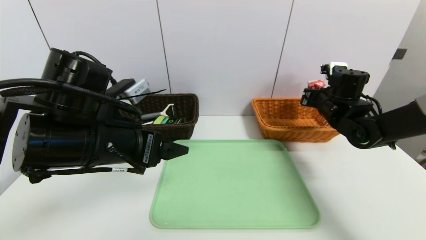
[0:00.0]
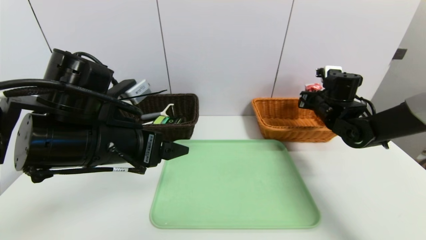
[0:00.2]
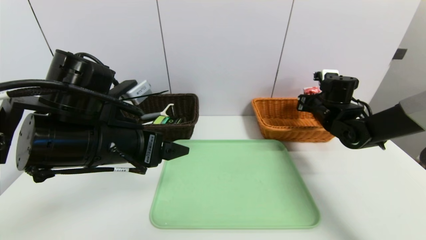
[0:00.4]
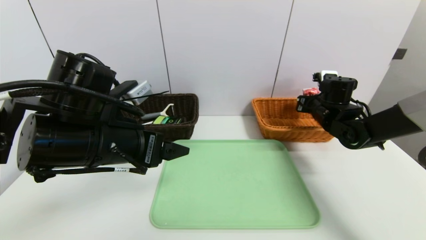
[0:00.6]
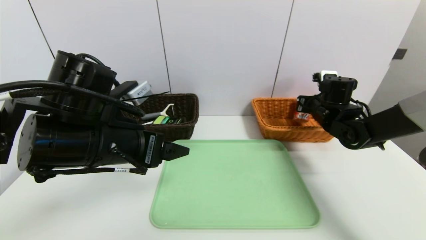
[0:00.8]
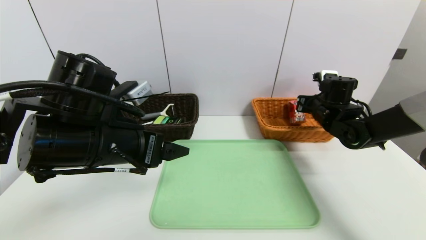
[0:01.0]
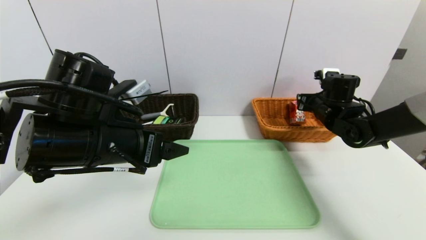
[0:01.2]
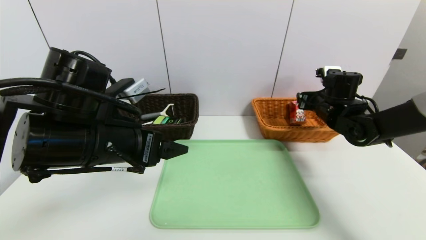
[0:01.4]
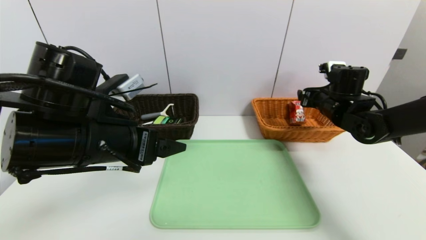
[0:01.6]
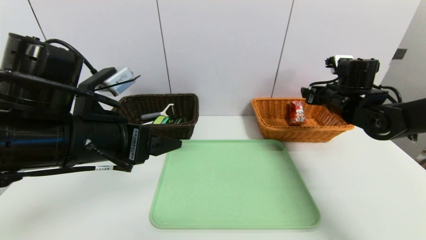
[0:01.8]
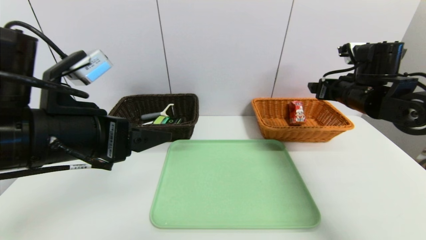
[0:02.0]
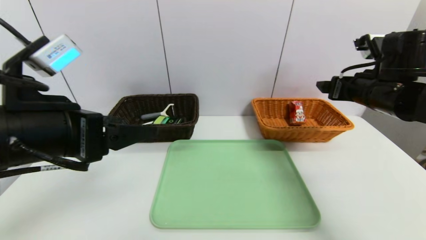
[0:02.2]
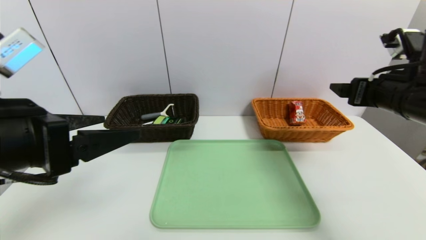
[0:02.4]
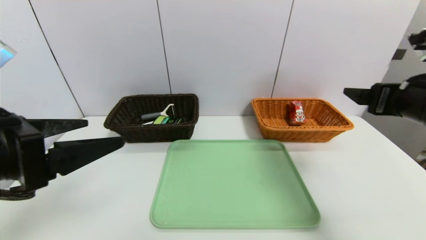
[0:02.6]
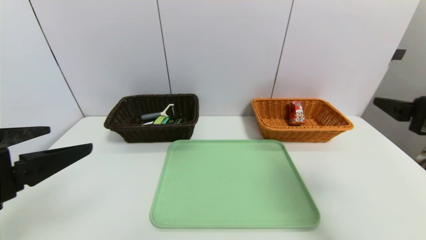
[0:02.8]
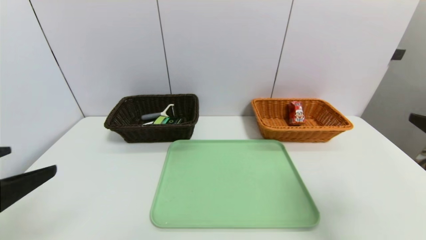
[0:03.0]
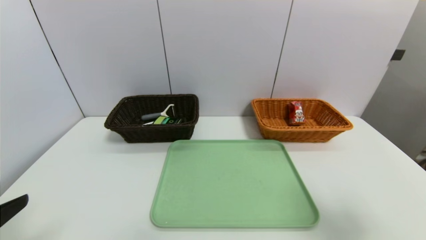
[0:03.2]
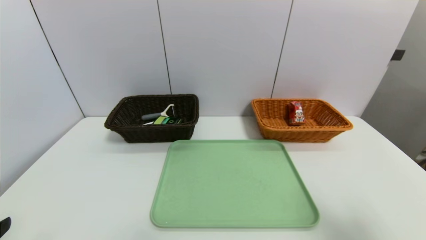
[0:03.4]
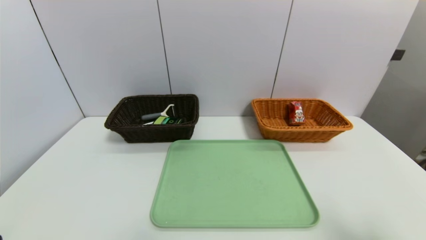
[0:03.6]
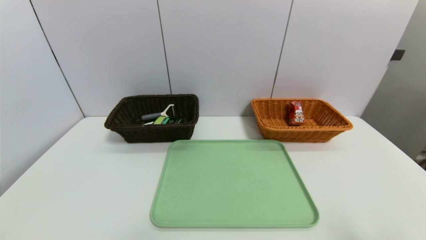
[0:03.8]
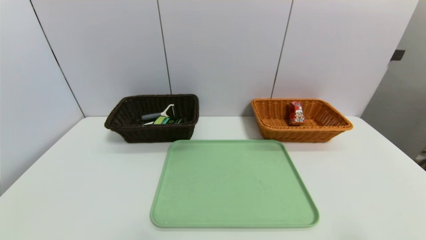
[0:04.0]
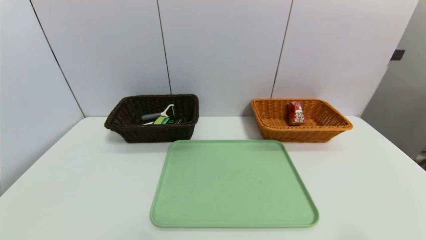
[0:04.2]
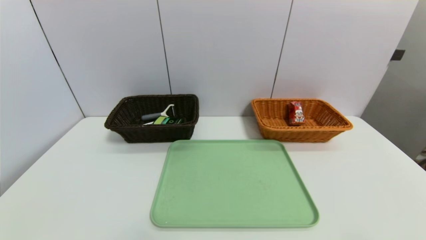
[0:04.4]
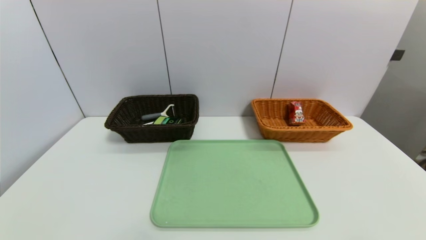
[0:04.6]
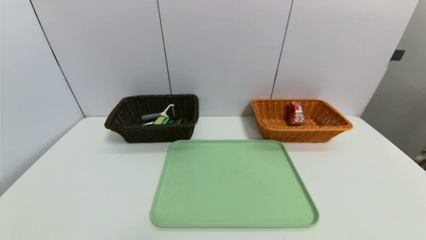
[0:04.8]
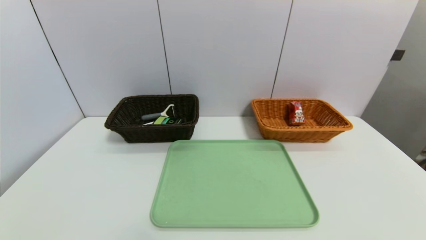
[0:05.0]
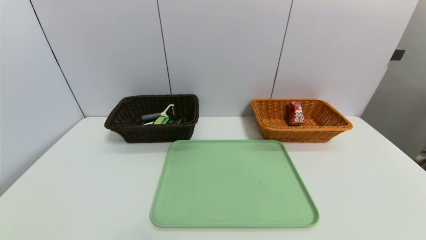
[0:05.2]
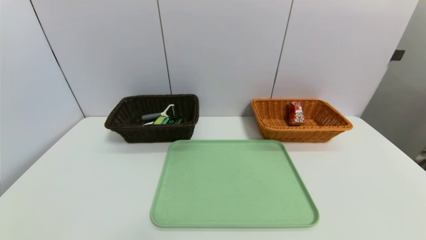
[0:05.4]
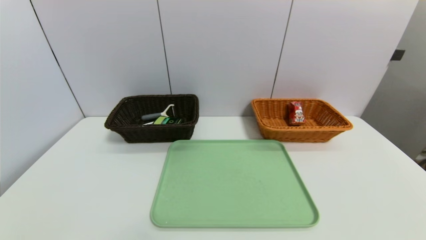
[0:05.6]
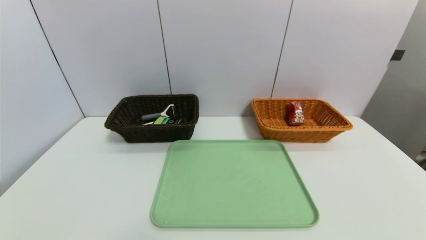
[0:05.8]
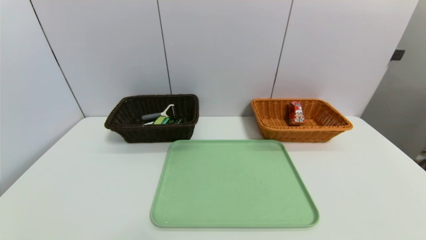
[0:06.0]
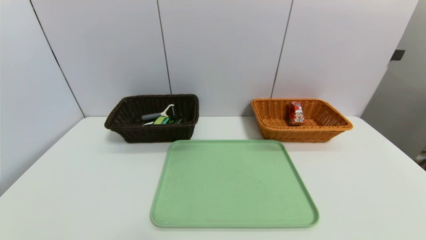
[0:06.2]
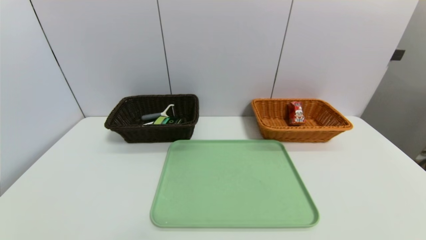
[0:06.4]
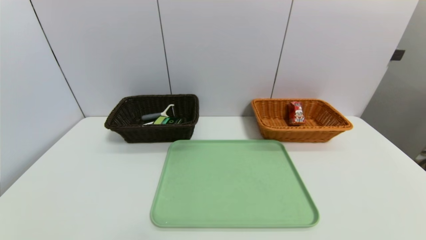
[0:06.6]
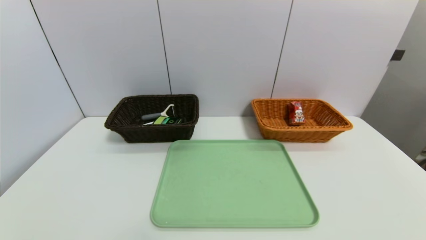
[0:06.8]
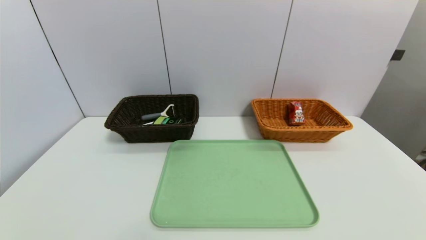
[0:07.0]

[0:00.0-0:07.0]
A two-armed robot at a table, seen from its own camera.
Task of the whole recording: place the food in the right basket with the right gripper, and place the non food items in the left basket with the left gripper.
0:00.0 to 0:01.4: The right gripper opens.
0:01.4 to 0:02.8: The right gripper moves backward, some 25 cm, while the left gripper is displaced backward and to the left by some 15 cm.
0:02.8 to 0:04.2: The right gripper goes about 15 cm backward. The left gripper heads backward and downward, covering approximately 15 cm.

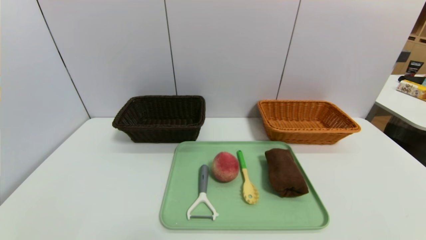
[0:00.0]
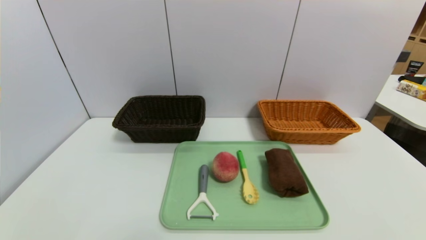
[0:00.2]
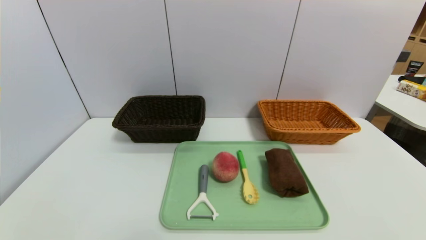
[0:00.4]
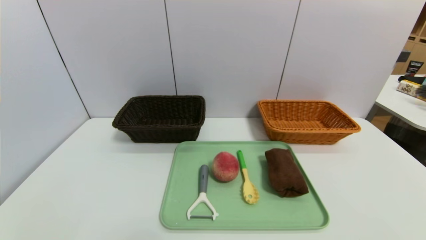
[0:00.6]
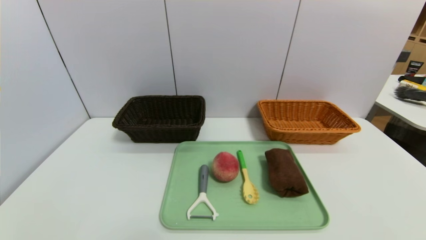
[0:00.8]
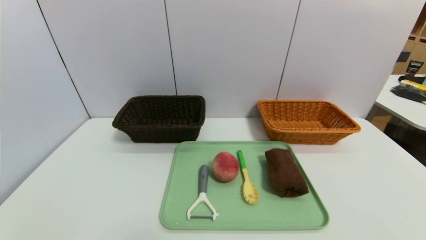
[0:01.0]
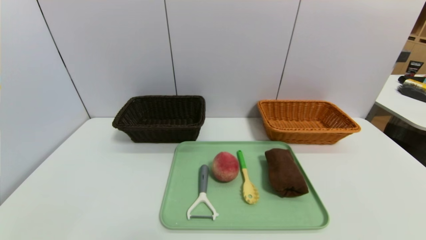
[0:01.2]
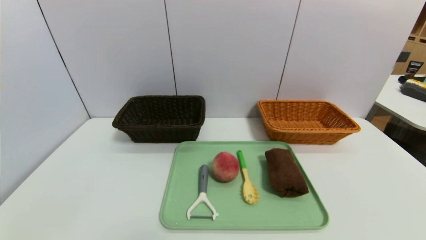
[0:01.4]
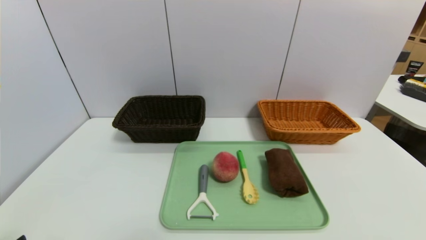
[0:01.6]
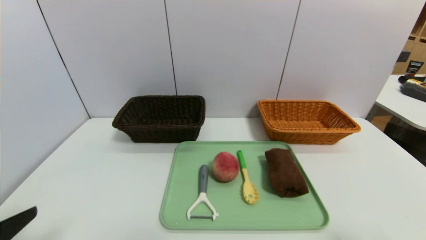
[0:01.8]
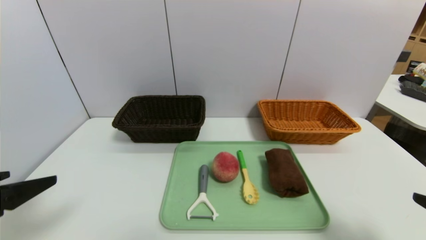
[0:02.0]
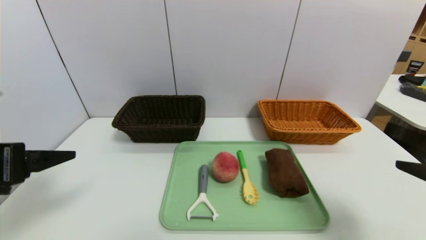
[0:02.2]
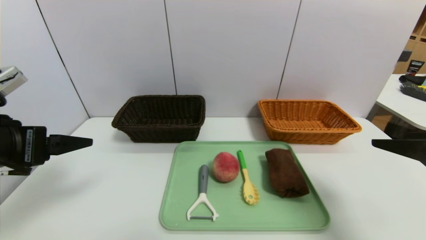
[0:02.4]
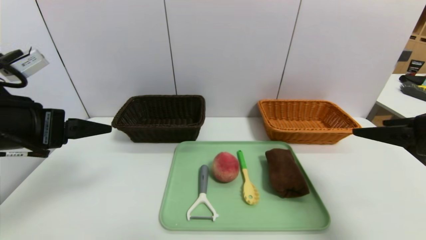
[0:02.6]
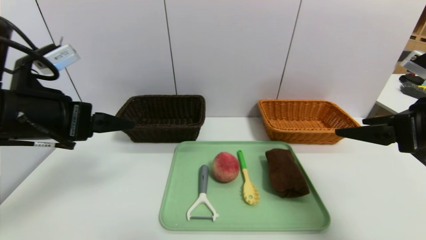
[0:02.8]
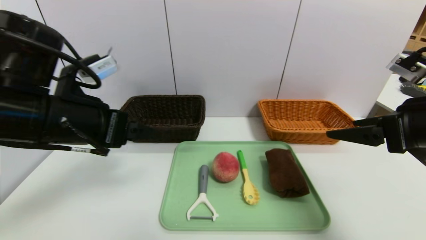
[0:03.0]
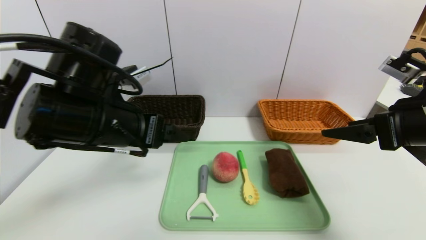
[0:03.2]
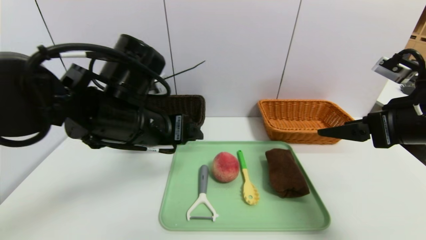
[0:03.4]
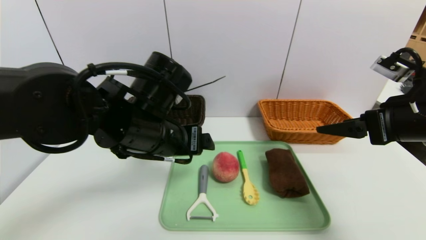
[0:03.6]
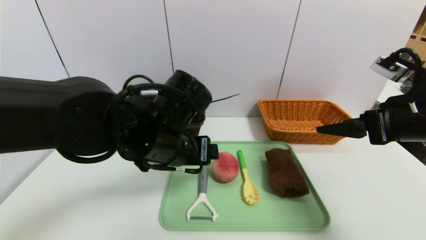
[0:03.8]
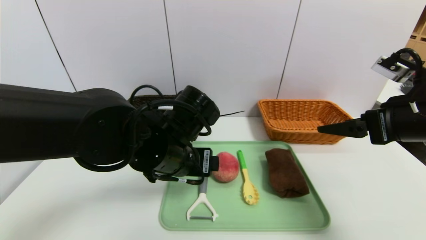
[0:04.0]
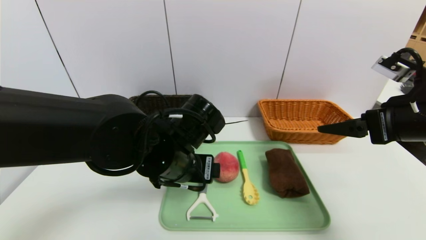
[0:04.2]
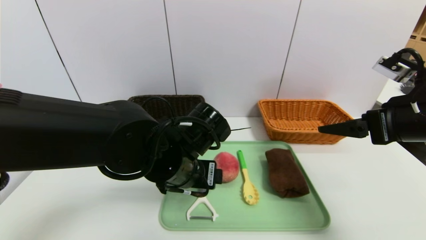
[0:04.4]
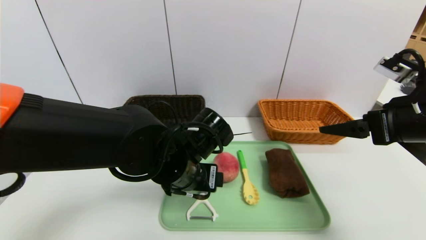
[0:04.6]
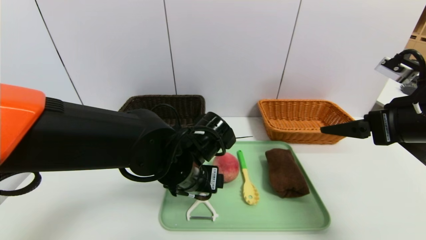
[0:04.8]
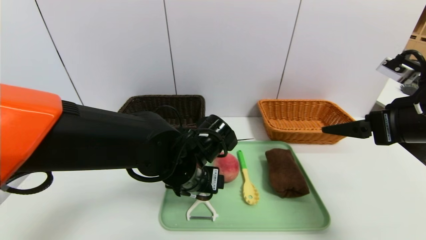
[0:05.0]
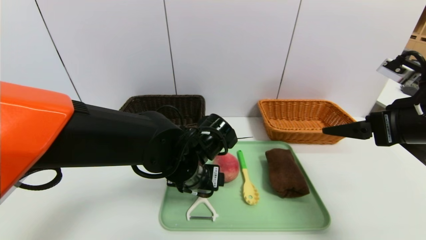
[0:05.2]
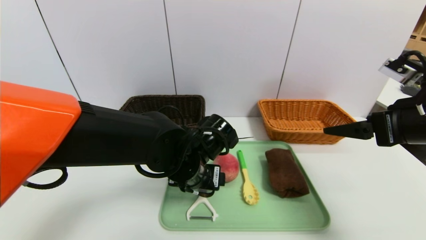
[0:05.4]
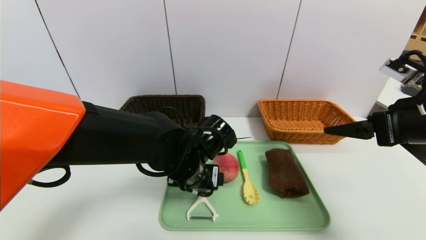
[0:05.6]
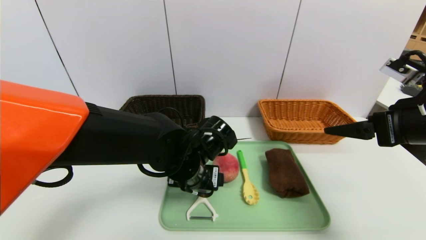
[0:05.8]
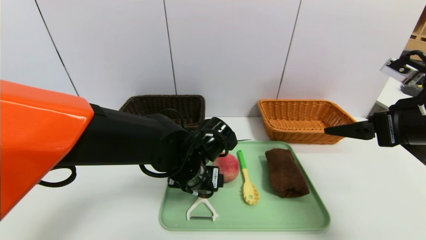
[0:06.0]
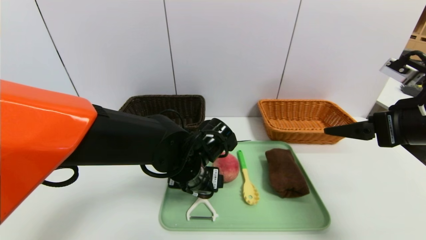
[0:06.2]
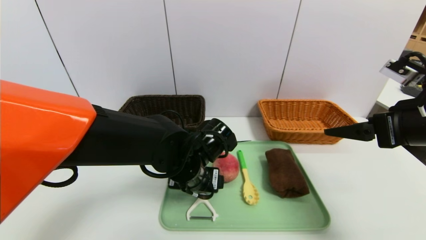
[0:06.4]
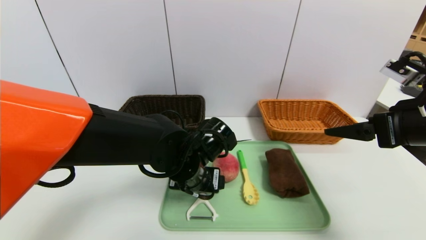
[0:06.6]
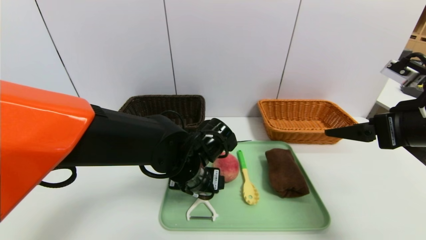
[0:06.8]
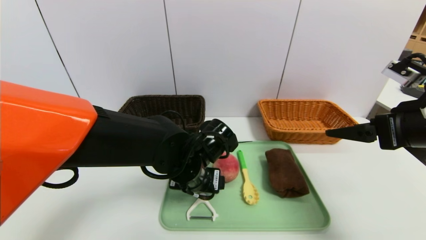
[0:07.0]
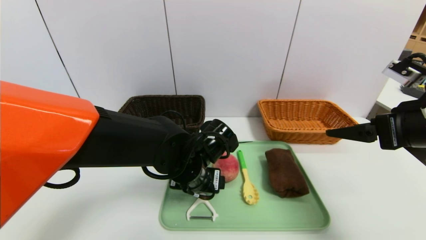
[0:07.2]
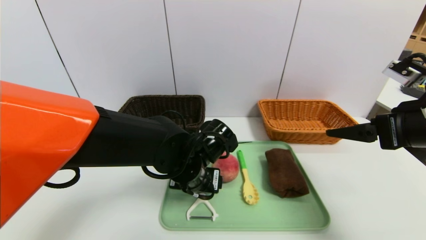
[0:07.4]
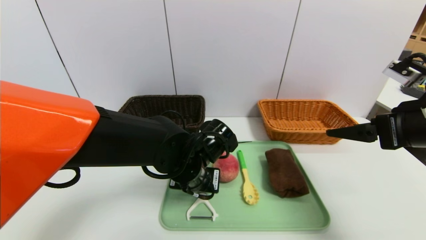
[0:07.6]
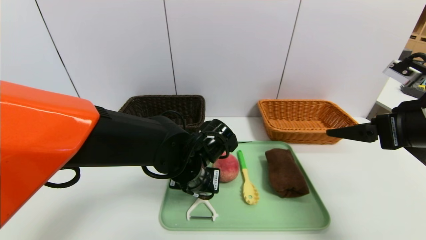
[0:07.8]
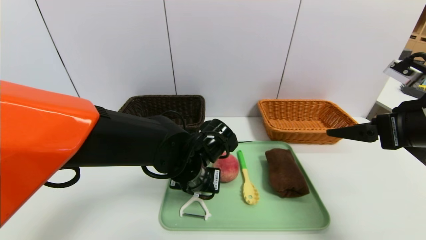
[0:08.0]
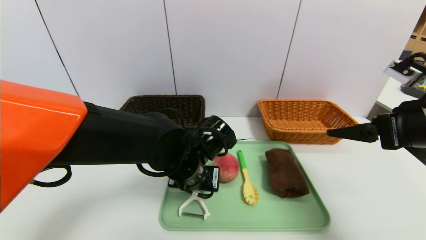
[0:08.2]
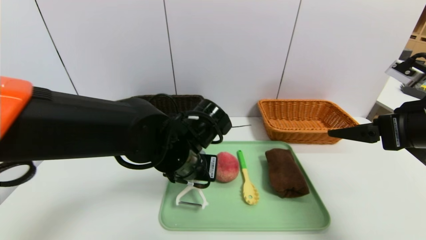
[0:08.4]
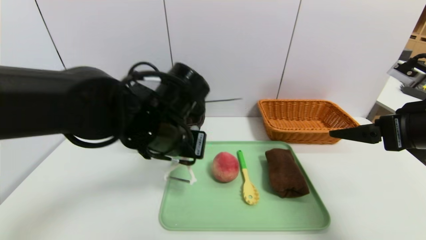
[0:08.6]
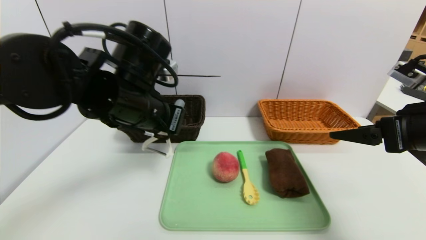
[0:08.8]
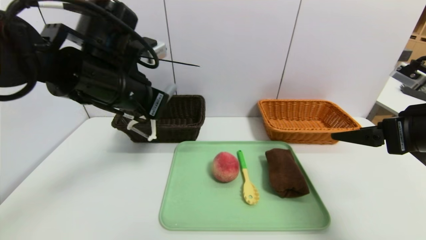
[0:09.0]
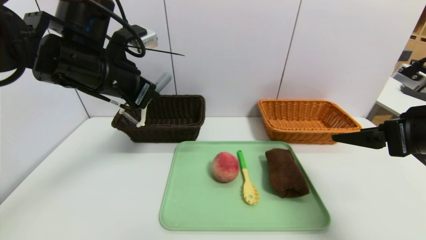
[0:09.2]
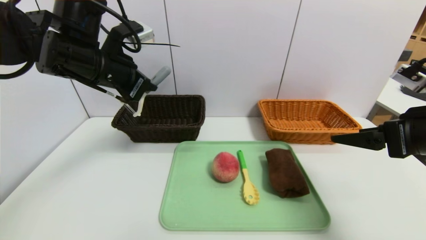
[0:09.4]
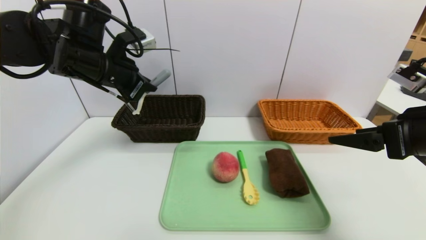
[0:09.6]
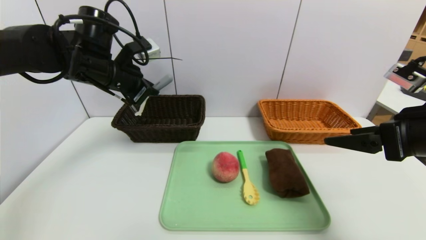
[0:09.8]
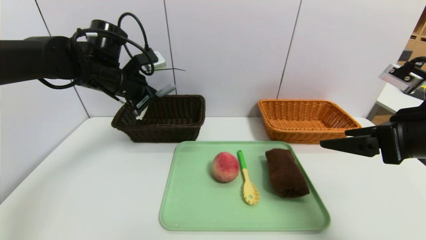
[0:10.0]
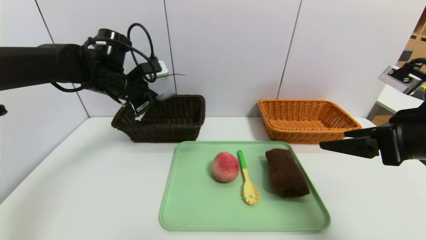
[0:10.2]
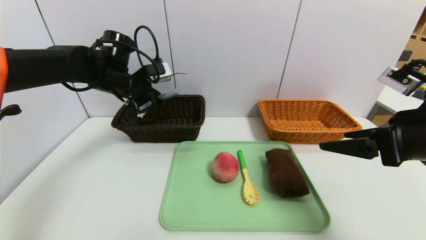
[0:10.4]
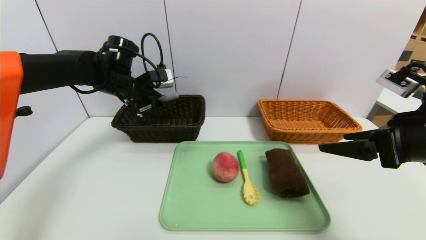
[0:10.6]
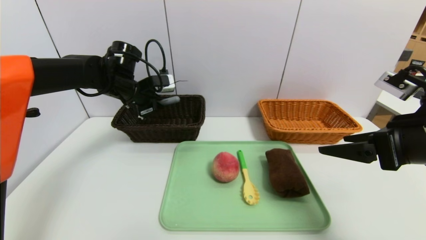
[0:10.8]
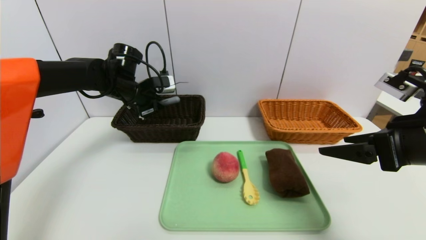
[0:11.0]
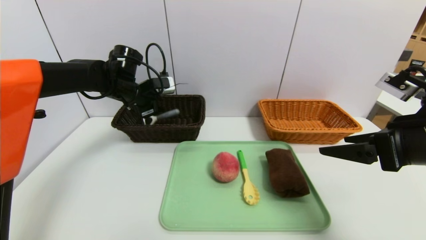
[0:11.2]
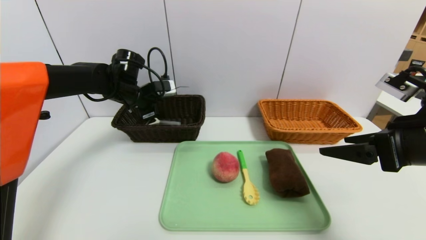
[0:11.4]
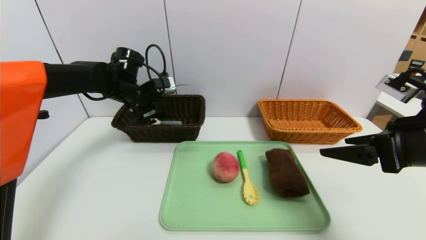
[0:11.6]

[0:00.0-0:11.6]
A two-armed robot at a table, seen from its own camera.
Task of the whole recording: place the food in the right basket with the right gripper, and place the non food items in the left basket with the left gripper.
Step, 0:00.0 to 0:11.6: Grasp the peeler and put it in the left basket.
0:01.4 to 0:02.8: The grippers both shift forward and upward by approximately 25 cm.
0:02.8 to 0:04.4: The left gripper heads to the right and downward, covering about 20 cm.
0:04.4 to 0:05.8: The grippers stay close to where they were, moving slightly.
0:05.8 to 0:07.2: Neither gripper changes place.
0:07.2 to 0:08.8: The left gripper is displaced upward and to the left by roughly 15 cm, and closes up.
0:08.8 to 0:10.2: The left gripper moves forward and to the left, about 15 cm.
0:10.2 to 0:11.6: The left gripper ends up about 5 cm from where it was, and opens its fingers.
